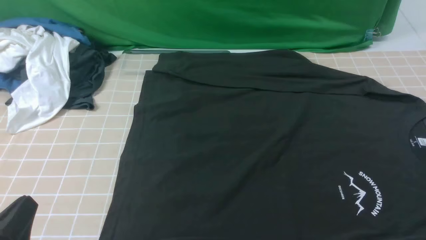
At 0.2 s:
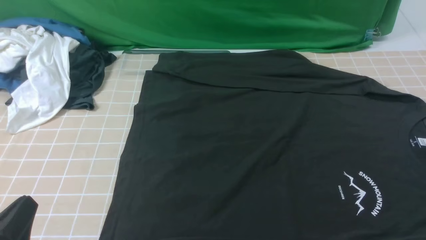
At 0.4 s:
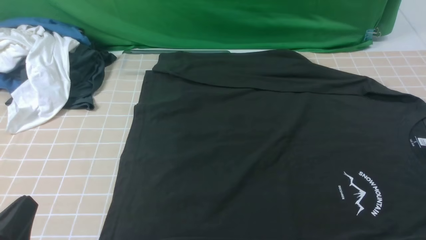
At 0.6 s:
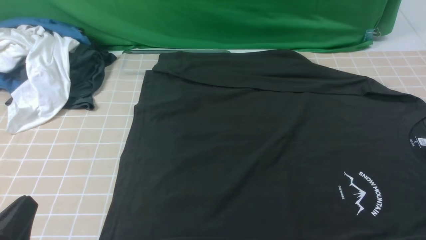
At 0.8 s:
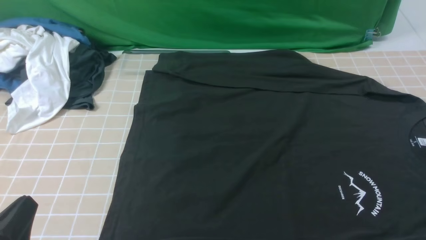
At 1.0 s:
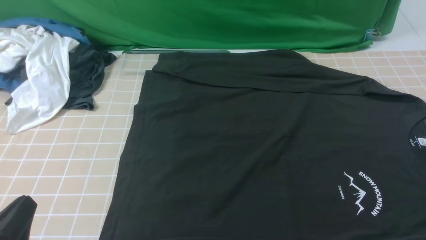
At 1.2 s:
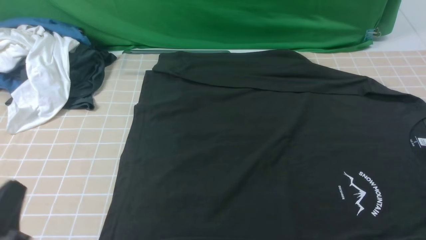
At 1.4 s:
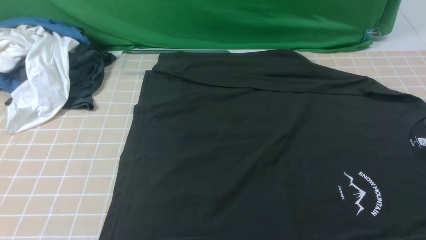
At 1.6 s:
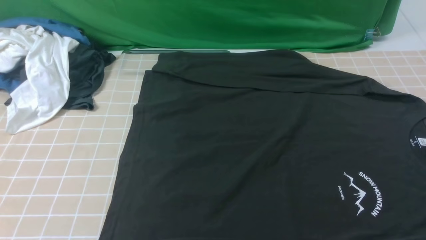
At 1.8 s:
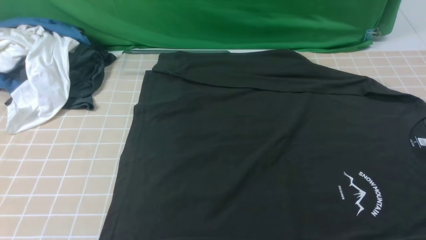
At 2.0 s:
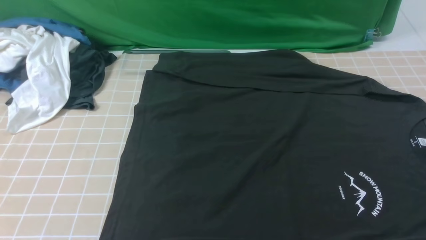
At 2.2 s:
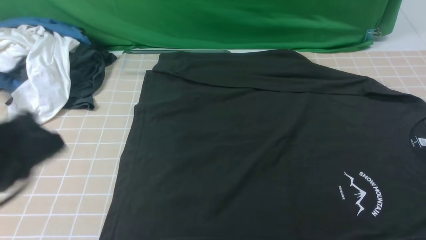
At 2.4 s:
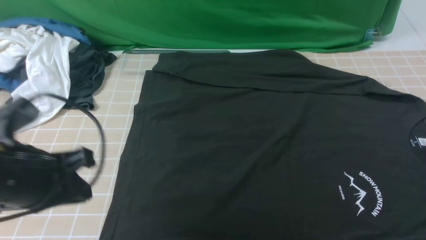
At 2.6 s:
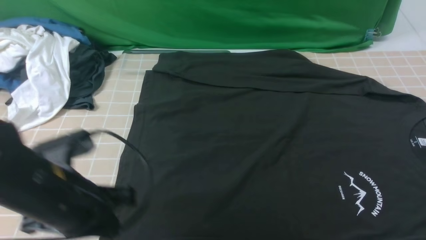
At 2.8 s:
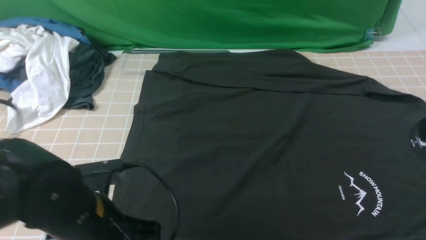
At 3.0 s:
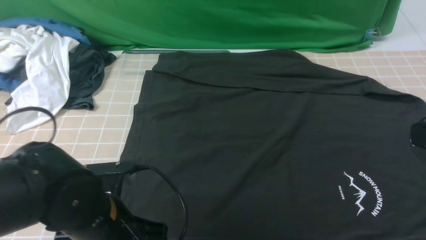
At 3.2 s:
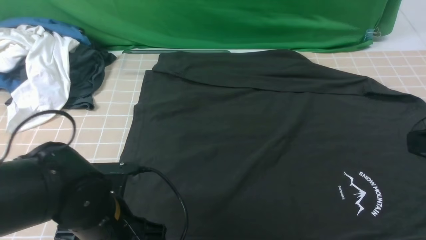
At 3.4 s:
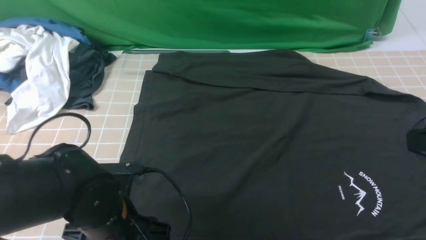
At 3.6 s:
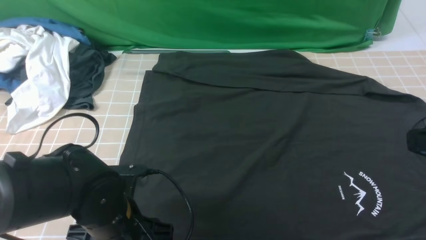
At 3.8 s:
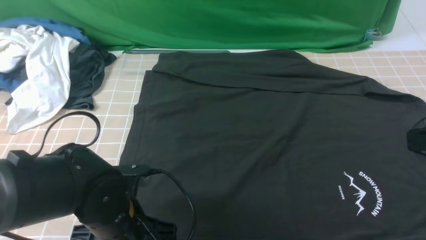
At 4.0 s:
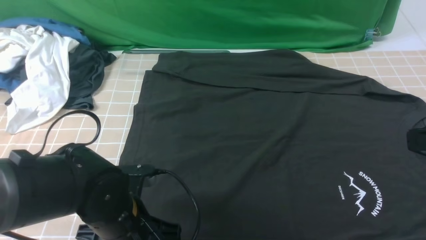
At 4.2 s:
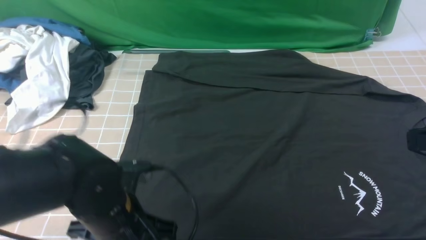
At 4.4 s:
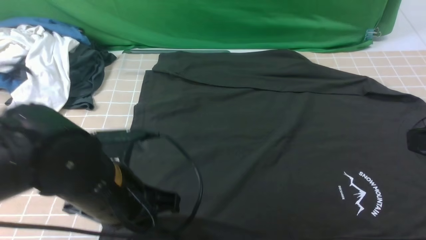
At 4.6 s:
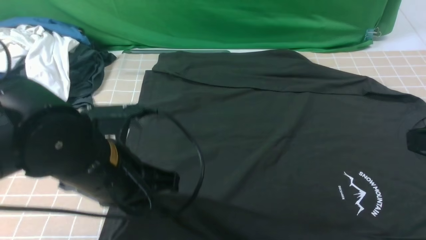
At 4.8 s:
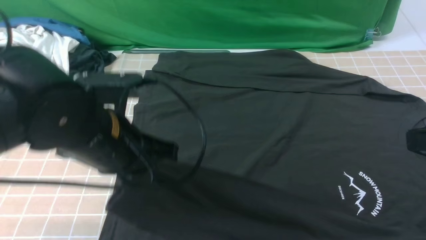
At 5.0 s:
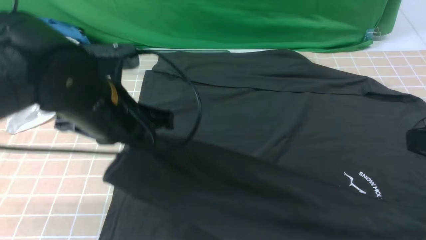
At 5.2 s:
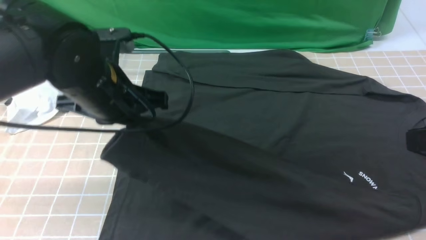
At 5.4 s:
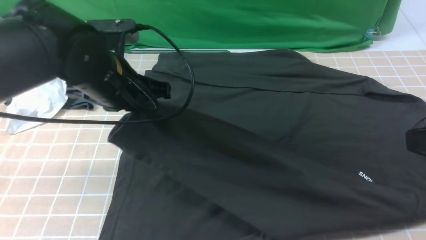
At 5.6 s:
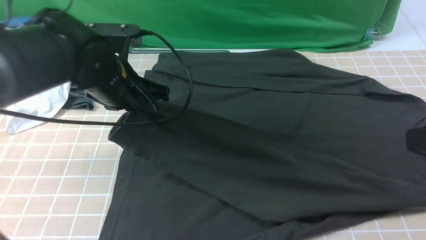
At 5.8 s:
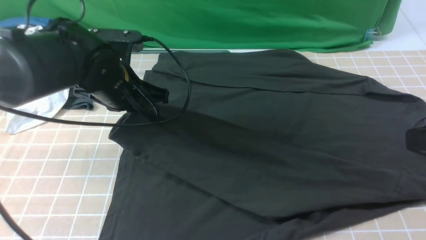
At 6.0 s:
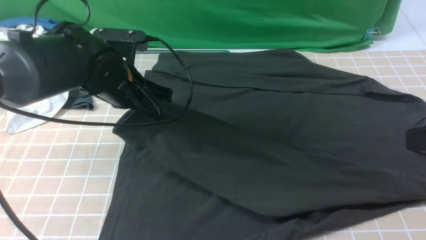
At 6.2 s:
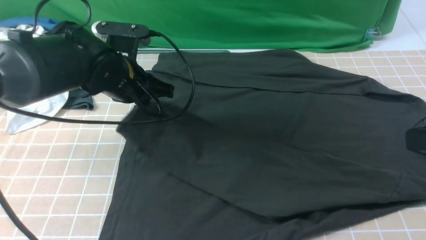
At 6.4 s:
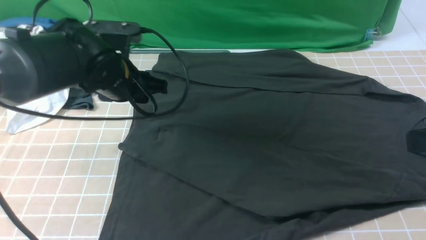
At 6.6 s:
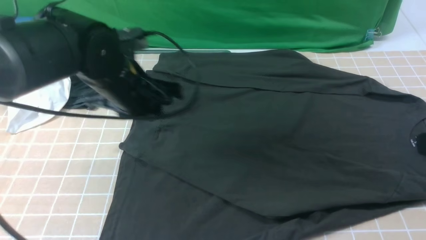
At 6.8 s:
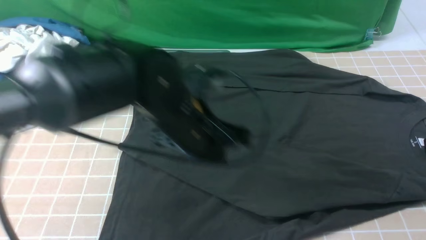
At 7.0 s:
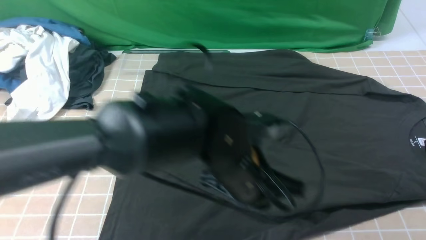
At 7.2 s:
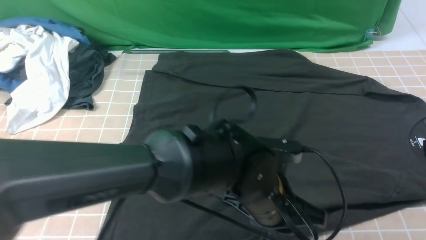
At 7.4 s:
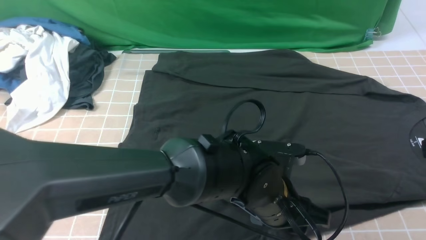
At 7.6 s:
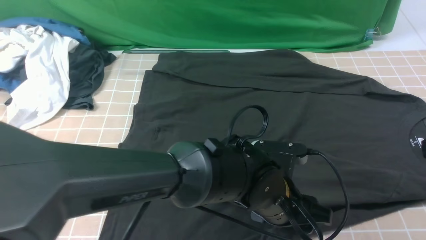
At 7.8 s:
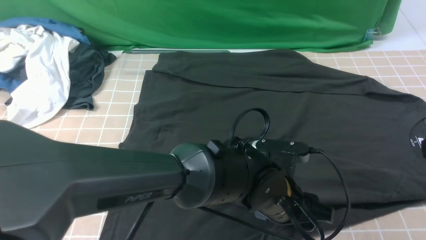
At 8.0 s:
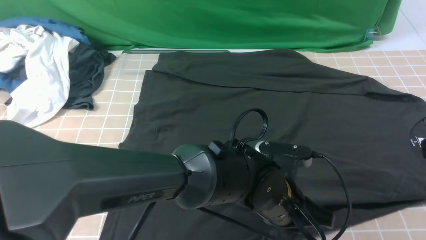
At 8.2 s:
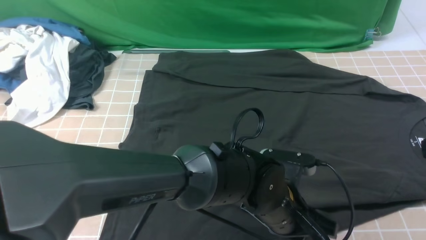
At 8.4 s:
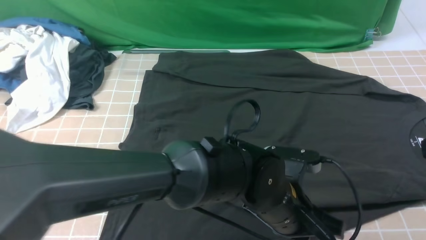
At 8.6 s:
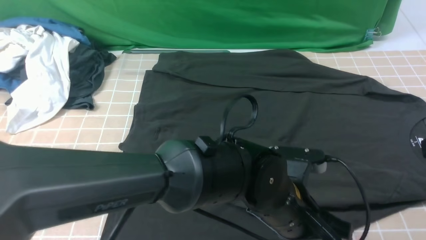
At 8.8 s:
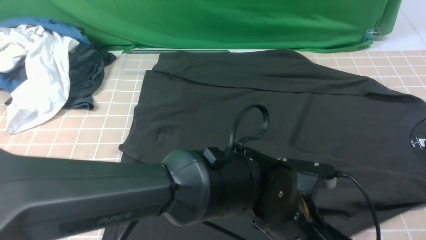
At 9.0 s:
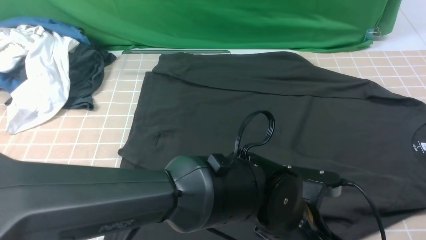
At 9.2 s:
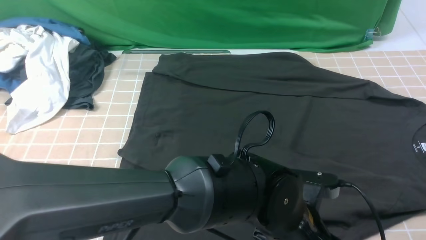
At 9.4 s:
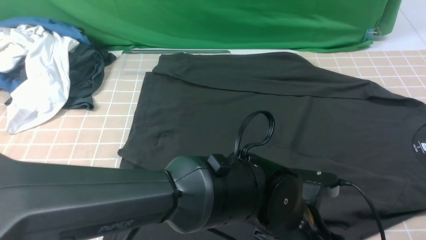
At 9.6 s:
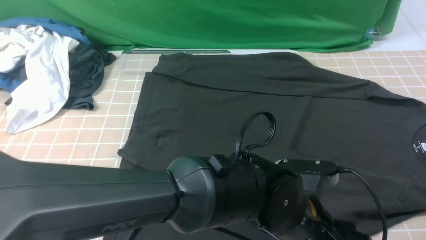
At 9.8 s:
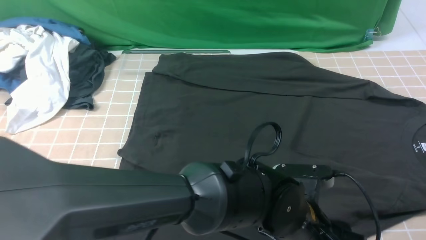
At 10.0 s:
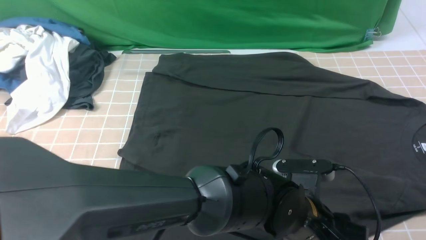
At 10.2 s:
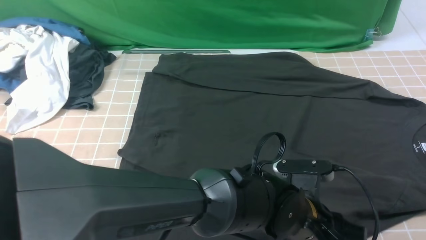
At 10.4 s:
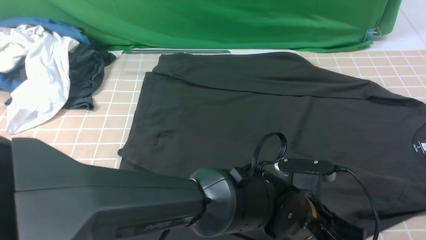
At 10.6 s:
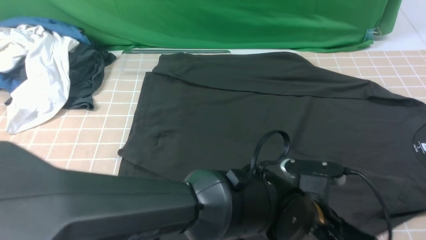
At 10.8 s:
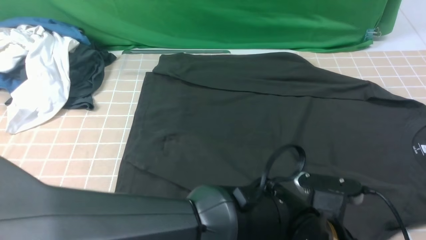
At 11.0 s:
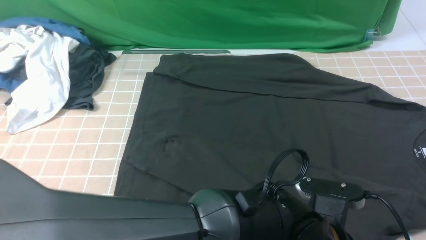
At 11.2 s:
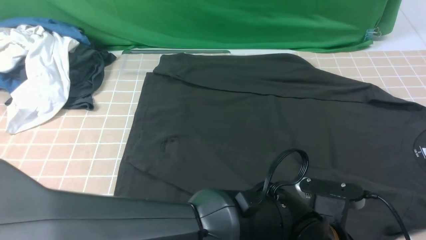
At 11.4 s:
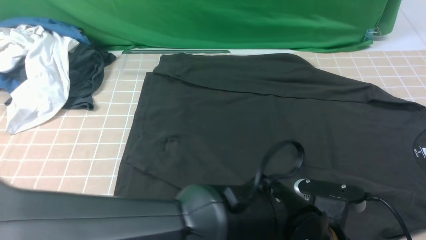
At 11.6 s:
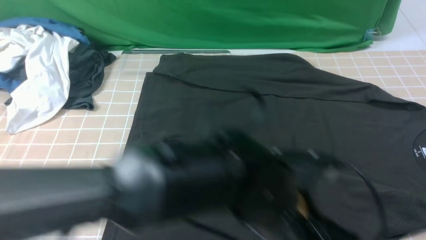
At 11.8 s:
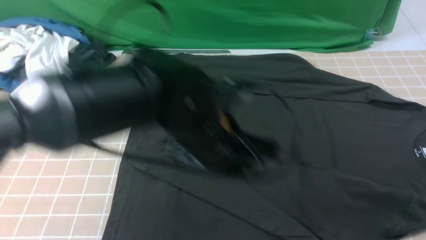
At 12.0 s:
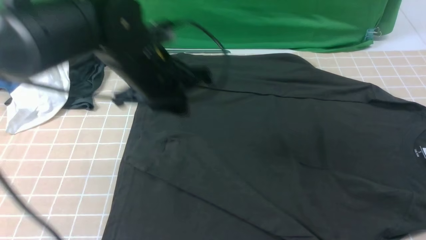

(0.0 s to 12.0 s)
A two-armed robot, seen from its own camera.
Step, 0.0 s - 3.8 s: use the left arm to clamp the cuff closest to it.
Step, 4.0 s - 6.2 s: use the left arm to drag and place the cuff at the centered position on the left edge of the fabric.
0.0 s - 1.6 s: The left gripper goes about 5 cm upward.
1.6 s - 3.0 s: The left gripper moves forward, to the right and downward, about 20 cm. Meanwhile the right gripper moves upward and forward, some 15 cm, and closes its fingers.
3.0 s - 4.4 s: The left gripper moves some 5 cm, and opens, then closes again.
4.4 s - 6.0 s: The left gripper is displaced forward by roughly 15 cm.
6.0 s - 7.6 s: The left gripper heads to the right and backward, covering some 25 cm, and opens its fingers.
7.6 s - 9.0 s: The left gripper changes place by roughly 5 cm, and closes its fingers.
9.0 s - 10.4 s: The left gripper opens, then closes once more.
10.4 s - 12.0 s: The left gripper moves to the left, forward and upward, approximately 30 cm.

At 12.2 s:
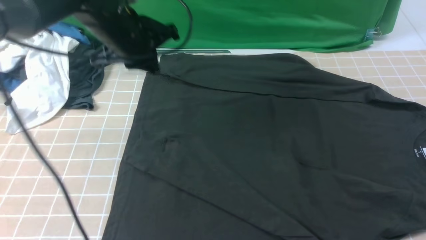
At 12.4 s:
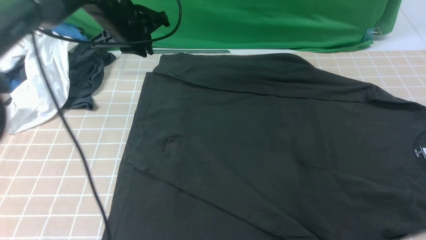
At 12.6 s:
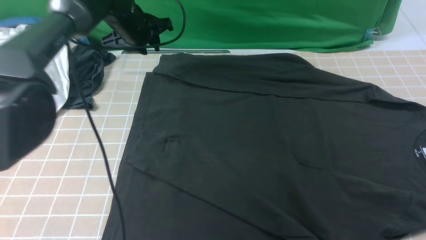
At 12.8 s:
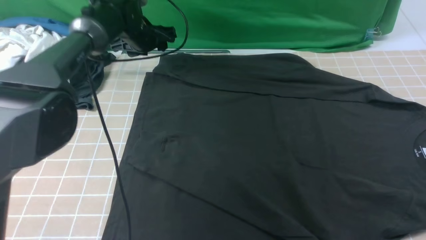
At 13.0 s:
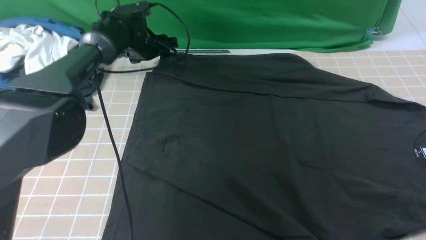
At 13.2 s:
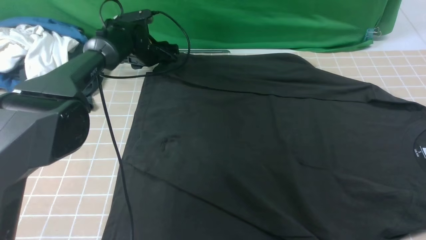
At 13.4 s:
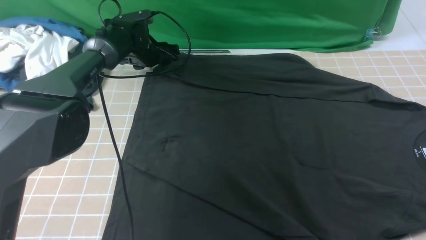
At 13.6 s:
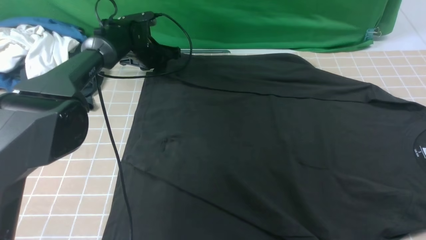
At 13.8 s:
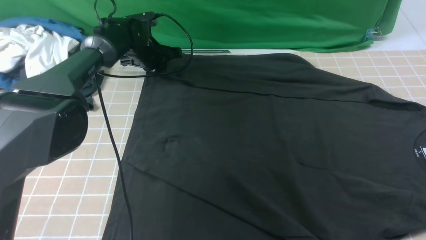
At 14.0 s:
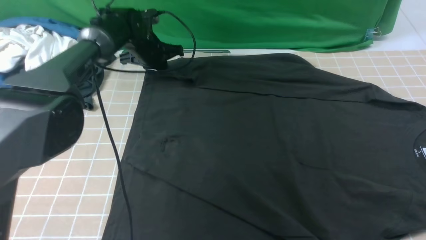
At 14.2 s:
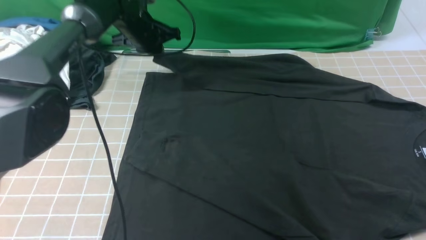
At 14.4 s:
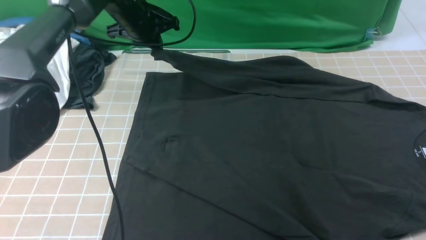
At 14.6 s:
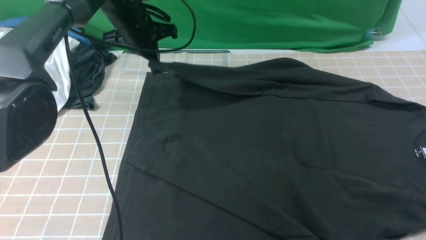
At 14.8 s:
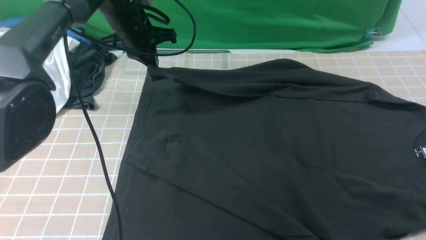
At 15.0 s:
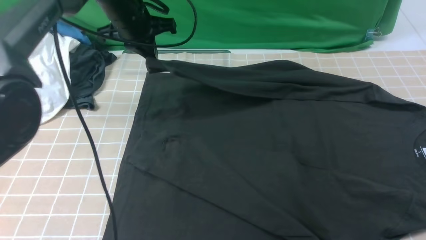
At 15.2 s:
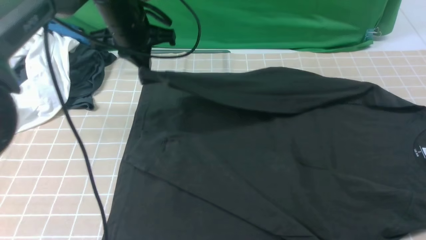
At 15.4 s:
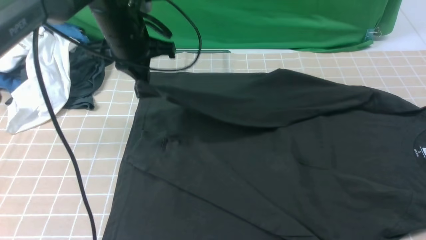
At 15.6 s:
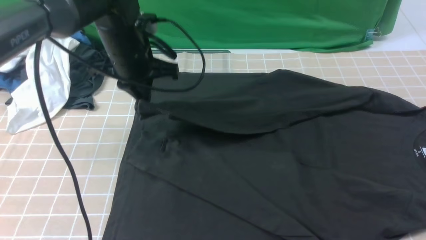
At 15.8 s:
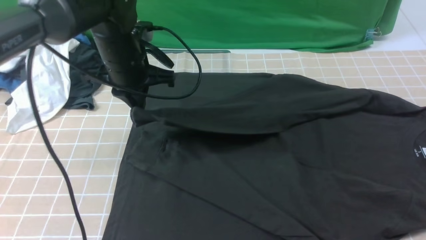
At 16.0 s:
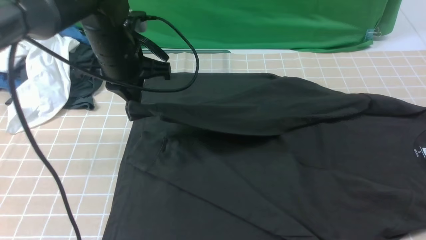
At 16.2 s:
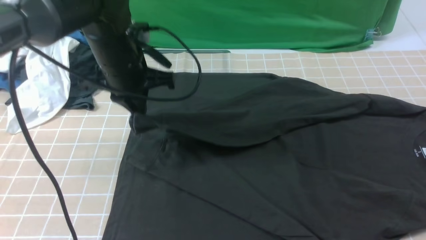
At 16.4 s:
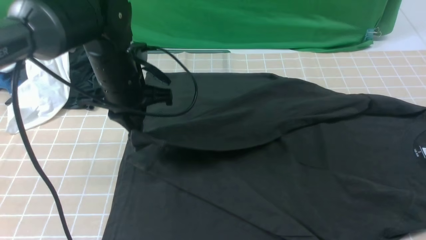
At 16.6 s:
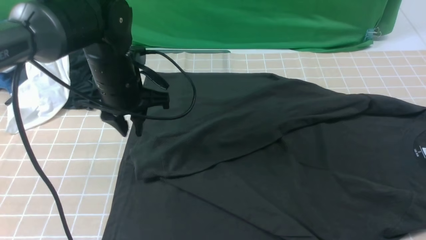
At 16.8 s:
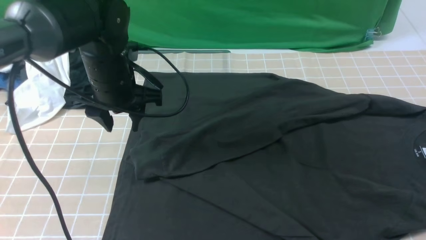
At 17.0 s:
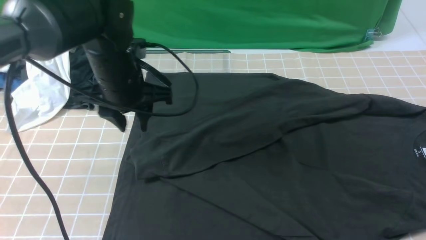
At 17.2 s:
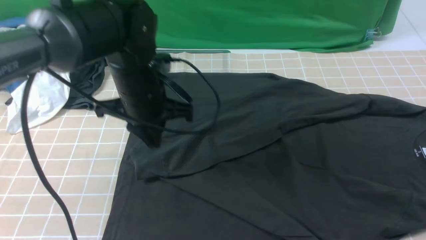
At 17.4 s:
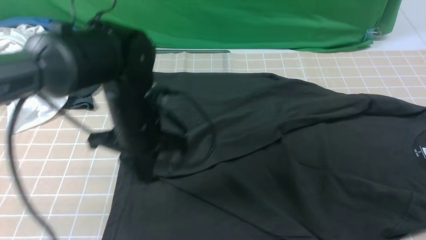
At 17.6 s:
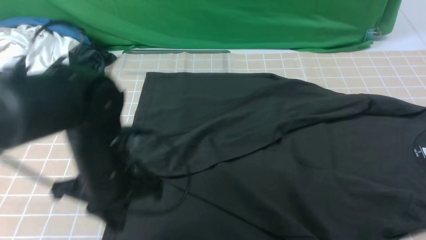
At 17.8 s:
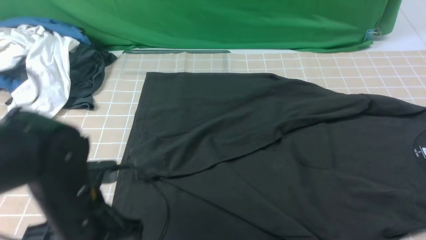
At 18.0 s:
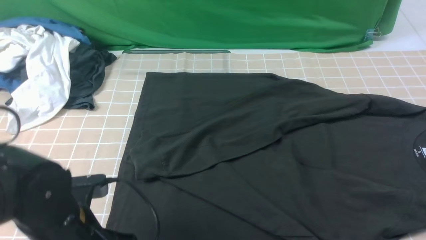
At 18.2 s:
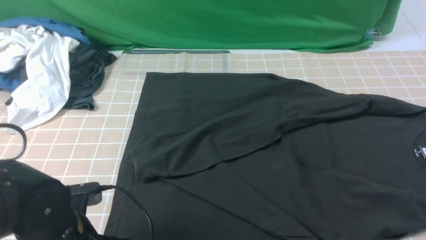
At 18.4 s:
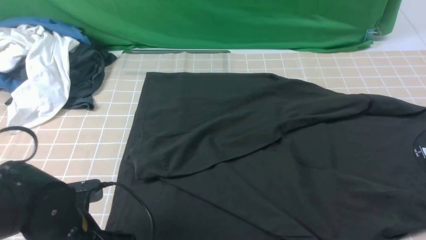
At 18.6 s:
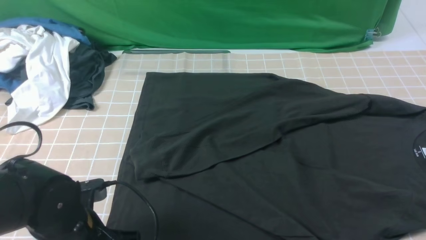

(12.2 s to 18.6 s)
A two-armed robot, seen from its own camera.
Step, 13.8 s - 16.4 s: use the left arm to drag and drop the cuff onto the cuff closest to the left arm.
12.2 s - 13.8 s: The left gripper shifts some 20 cm forward and downward, and opens, then closes once more.
13.8 s - 15.4 s: The left gripper travels backward and upward by some 20 cm.
15.4 s - 17.0 s: The left gripper heads backward, covering approximately 5 cm, and opens.
17.0 s - 18.6 s: The left gripper heads backward and downward, covering roughly 20 cm, and closes, then reopens. The right gripper closes.
